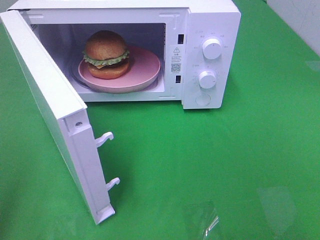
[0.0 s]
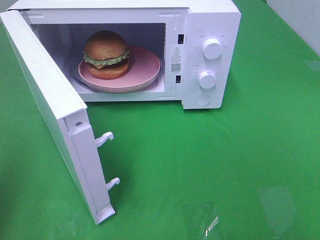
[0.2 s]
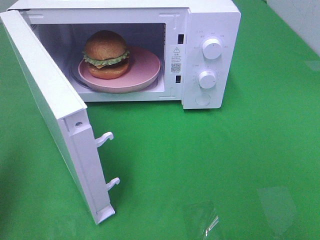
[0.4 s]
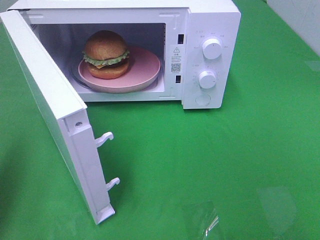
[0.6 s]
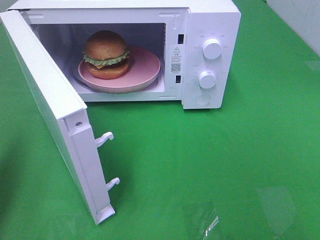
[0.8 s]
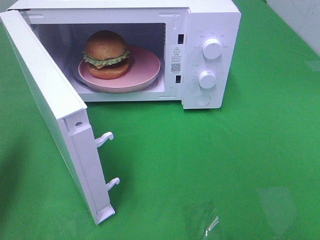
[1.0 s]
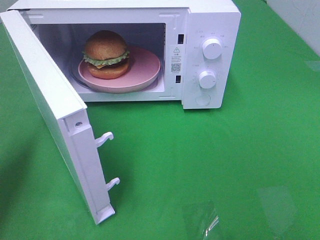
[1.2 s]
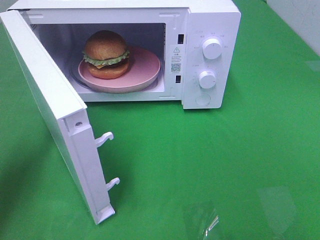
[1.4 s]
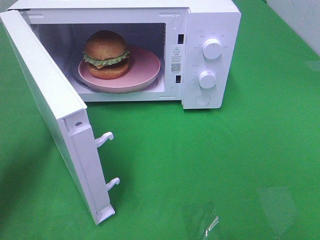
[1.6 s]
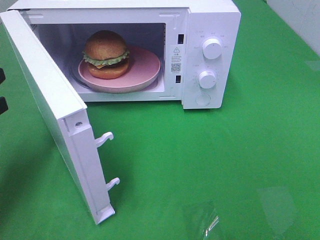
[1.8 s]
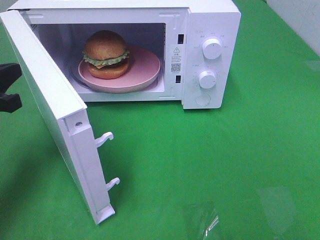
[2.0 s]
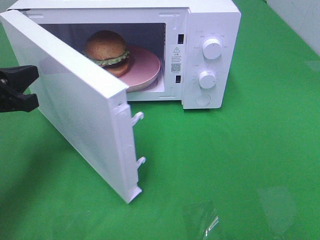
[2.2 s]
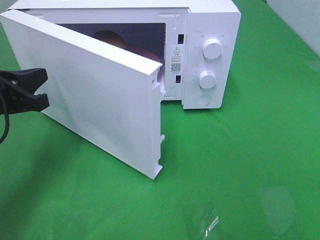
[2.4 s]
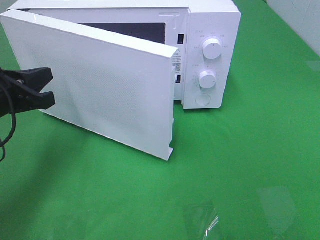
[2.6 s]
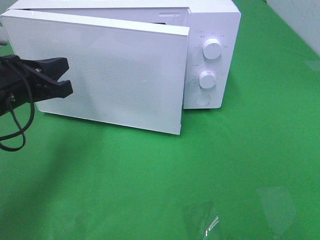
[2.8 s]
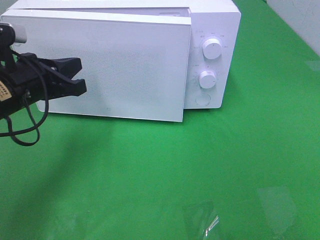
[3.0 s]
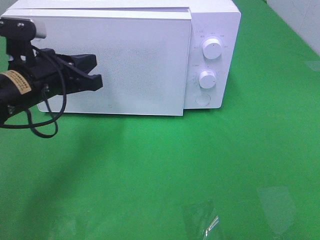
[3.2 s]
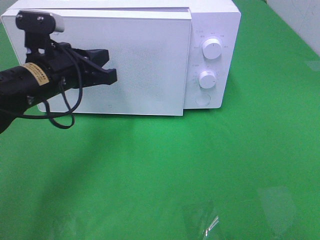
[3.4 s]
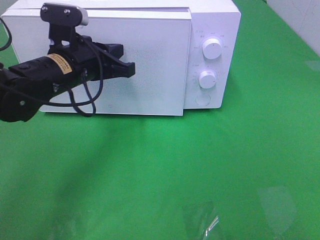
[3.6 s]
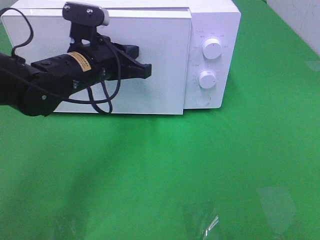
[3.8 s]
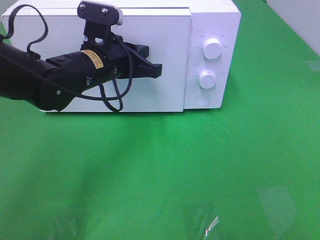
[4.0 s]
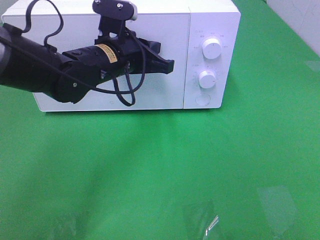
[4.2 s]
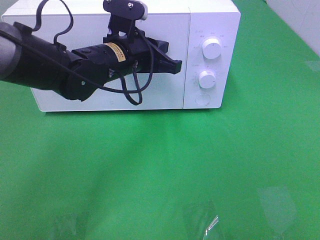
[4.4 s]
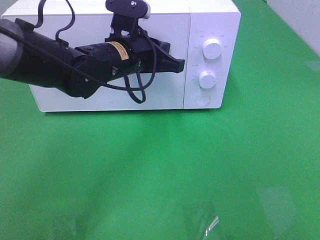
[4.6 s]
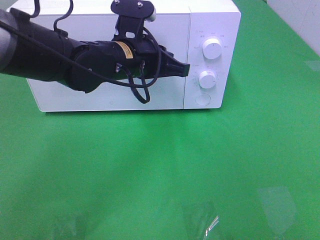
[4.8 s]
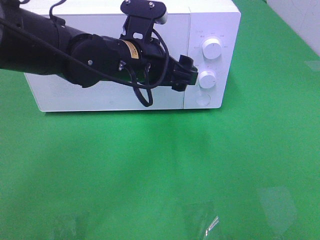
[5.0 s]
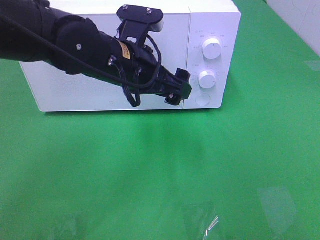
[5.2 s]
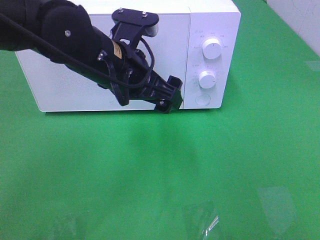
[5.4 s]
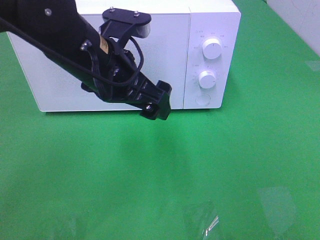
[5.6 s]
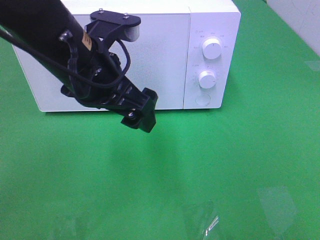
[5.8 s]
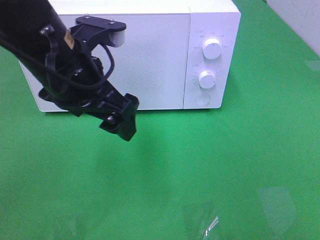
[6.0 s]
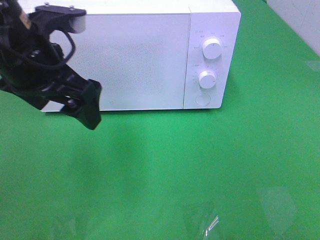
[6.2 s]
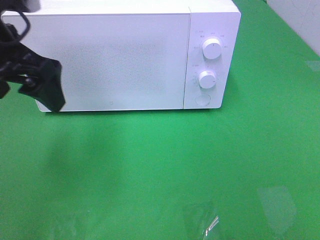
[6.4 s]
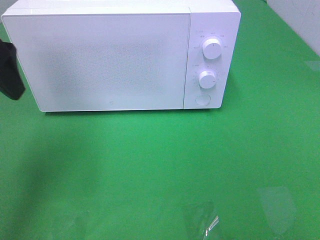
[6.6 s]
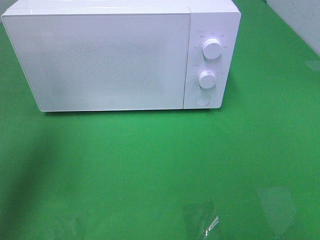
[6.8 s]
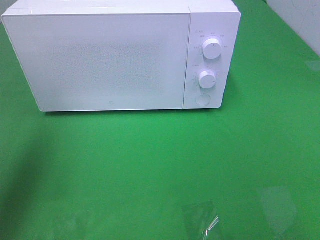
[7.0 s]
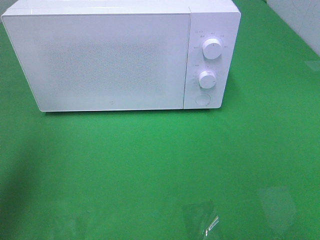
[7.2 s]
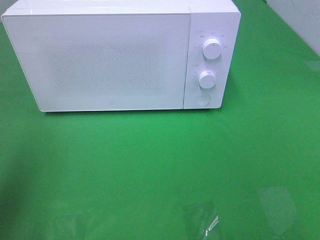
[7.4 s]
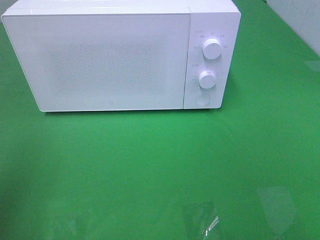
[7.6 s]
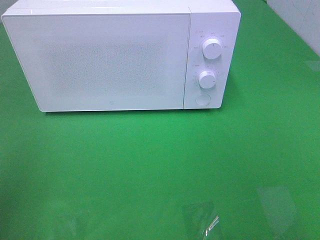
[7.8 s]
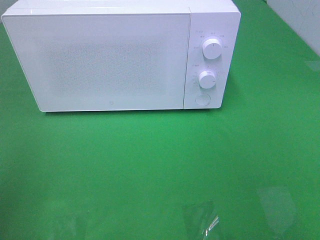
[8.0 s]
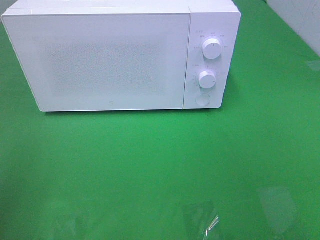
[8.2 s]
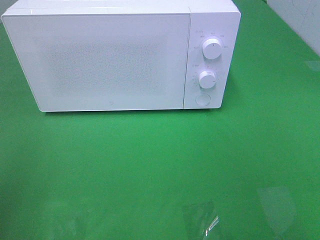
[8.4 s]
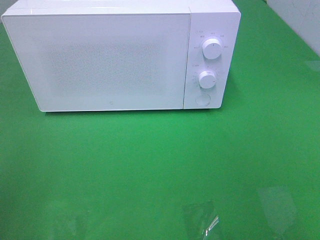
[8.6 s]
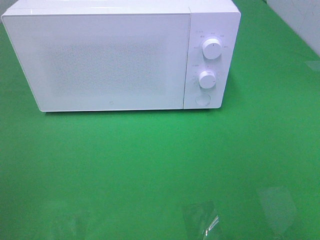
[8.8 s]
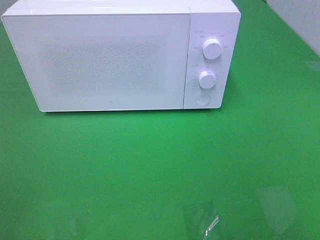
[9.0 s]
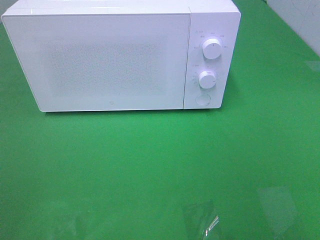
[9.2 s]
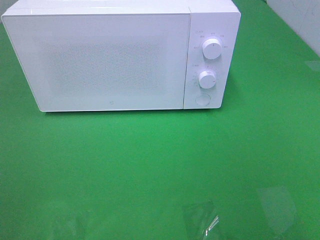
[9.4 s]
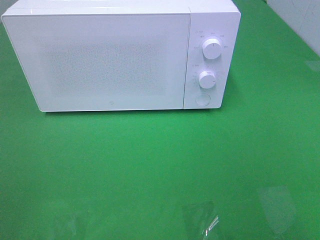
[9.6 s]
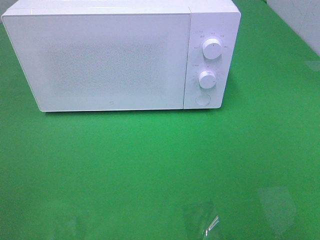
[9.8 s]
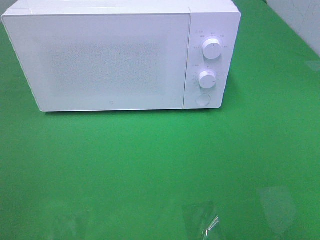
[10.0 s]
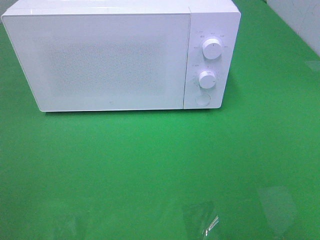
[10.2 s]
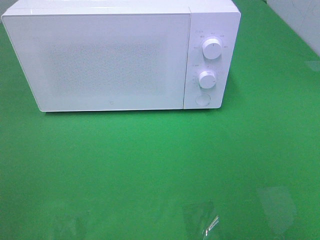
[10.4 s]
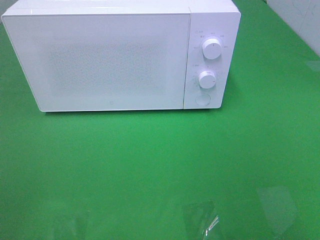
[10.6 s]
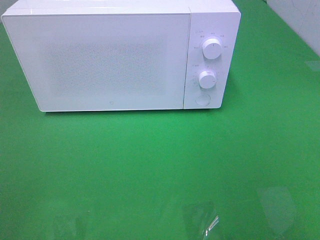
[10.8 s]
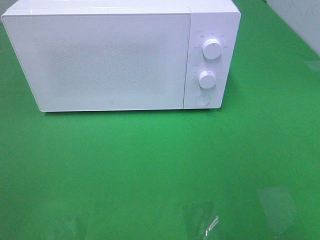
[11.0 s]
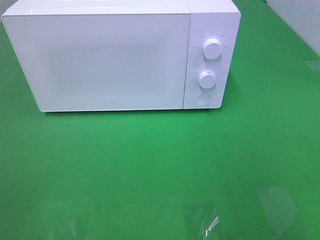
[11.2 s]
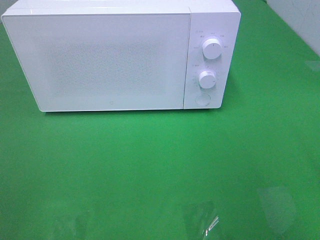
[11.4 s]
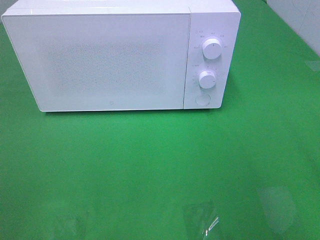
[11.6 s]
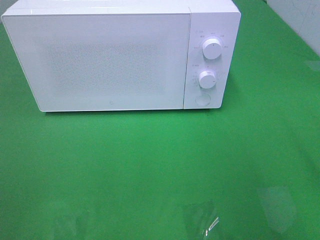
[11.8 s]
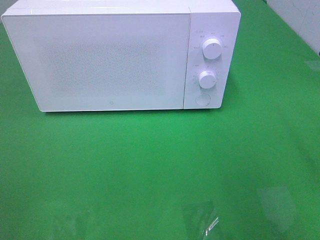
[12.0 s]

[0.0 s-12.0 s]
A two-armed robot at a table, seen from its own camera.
Task of the whole recording: Heat the burger.
Step, 0.0 to 4.6 s: Left hand: close the microwave door.
0.0 to 1.6 s: The left gripper travels forward and downward by some 20 cm, and closes its fingers.
1.6 to 3.0 s: The left gripper moves to the right and forward, roughly 10 cm.
3.0 to 4.4 s: The left gripper is displaced to the right and forward by approximately 15 cm.
4.4 to 6.0 s: The left gripper shifts about 15 cm backward and upward, and opens its fingers.
6.0 to 7.6 s: The left gripper shifts about 25 cm to the left and backward.

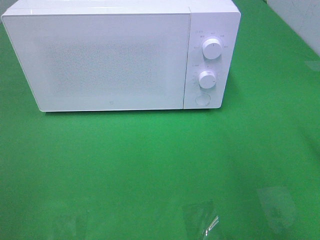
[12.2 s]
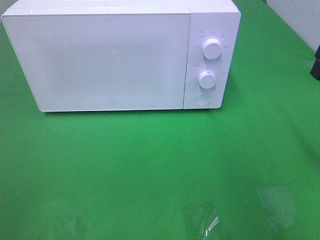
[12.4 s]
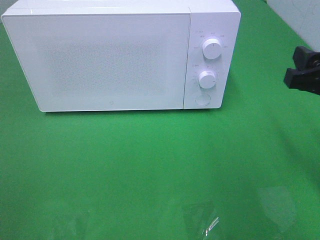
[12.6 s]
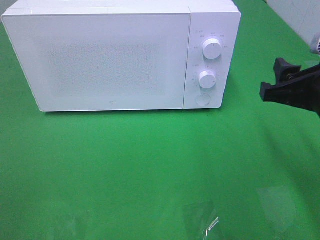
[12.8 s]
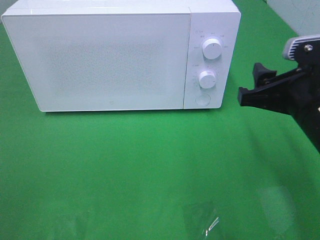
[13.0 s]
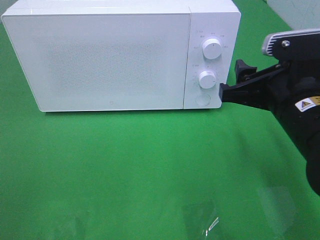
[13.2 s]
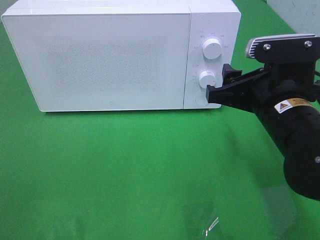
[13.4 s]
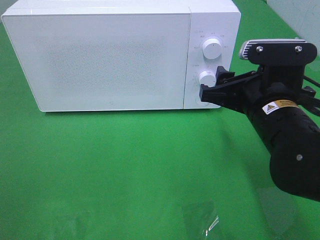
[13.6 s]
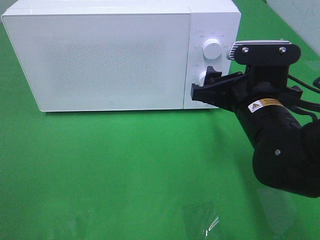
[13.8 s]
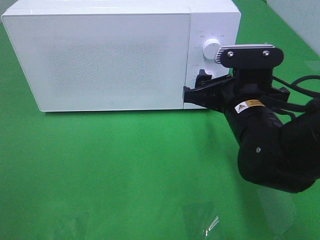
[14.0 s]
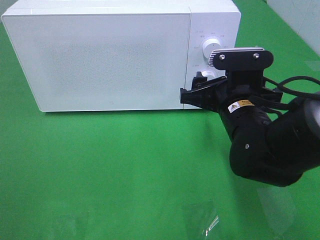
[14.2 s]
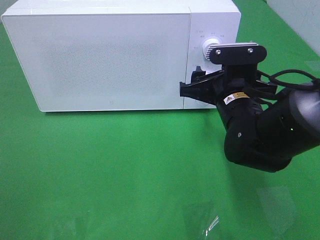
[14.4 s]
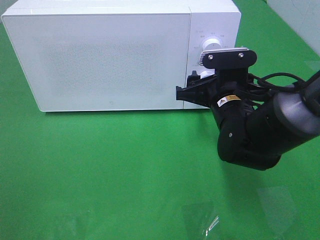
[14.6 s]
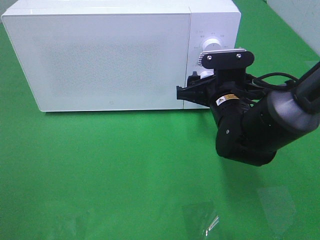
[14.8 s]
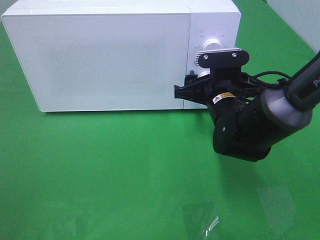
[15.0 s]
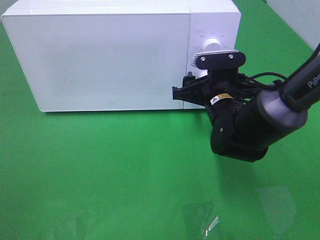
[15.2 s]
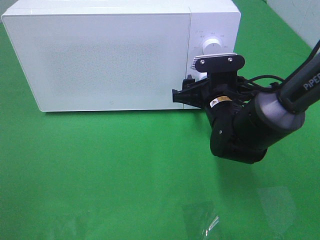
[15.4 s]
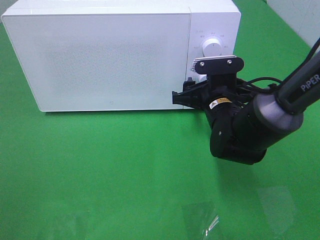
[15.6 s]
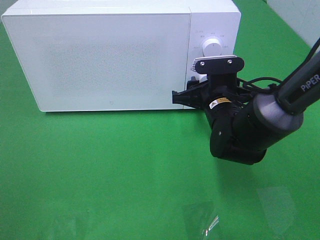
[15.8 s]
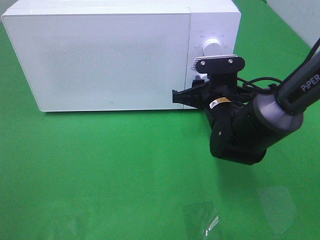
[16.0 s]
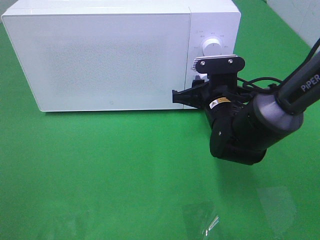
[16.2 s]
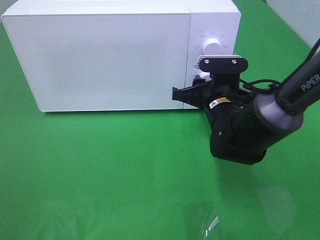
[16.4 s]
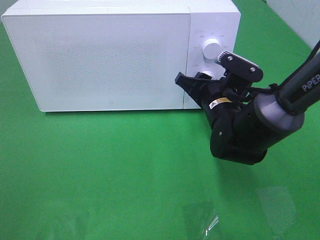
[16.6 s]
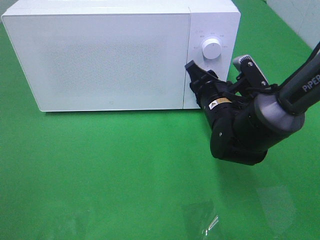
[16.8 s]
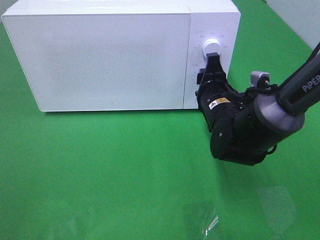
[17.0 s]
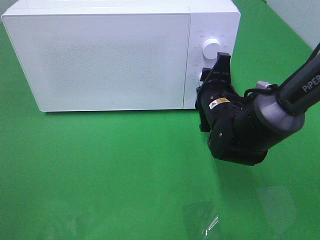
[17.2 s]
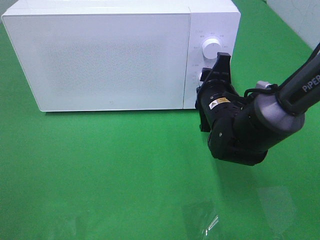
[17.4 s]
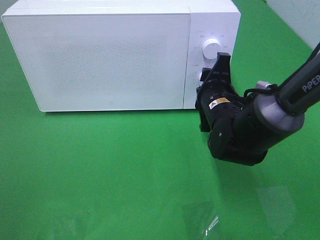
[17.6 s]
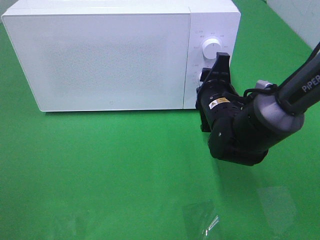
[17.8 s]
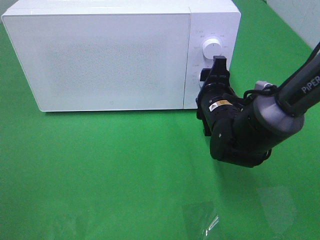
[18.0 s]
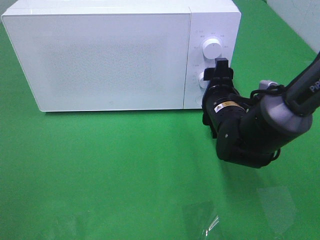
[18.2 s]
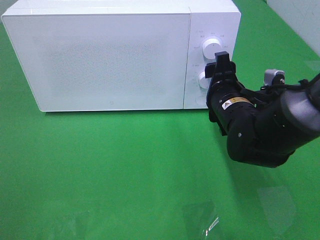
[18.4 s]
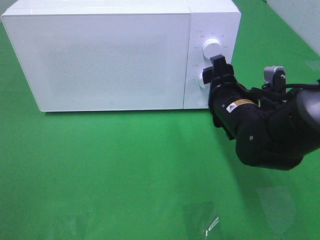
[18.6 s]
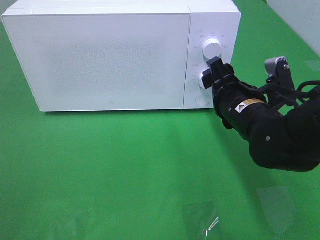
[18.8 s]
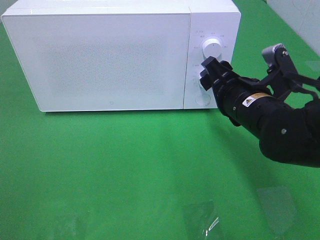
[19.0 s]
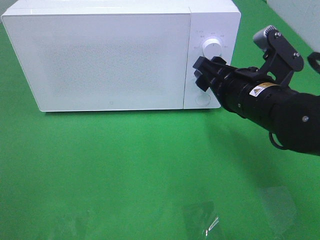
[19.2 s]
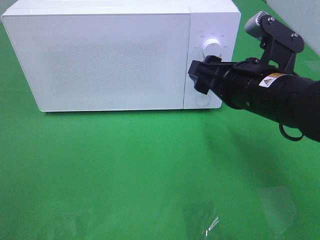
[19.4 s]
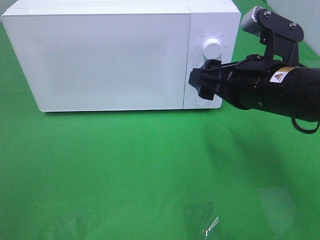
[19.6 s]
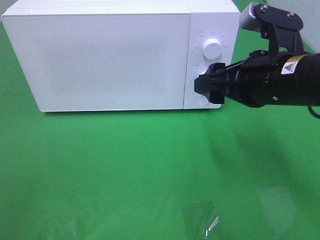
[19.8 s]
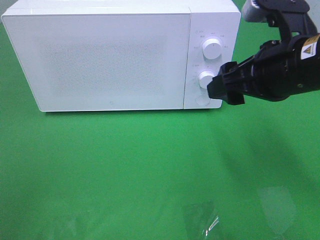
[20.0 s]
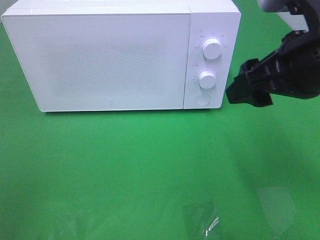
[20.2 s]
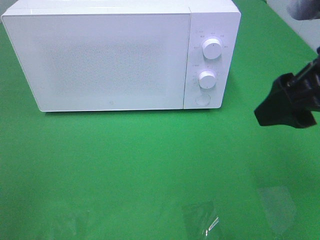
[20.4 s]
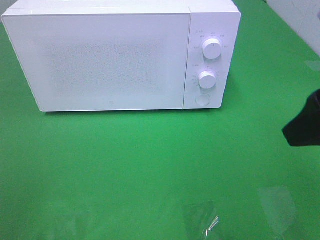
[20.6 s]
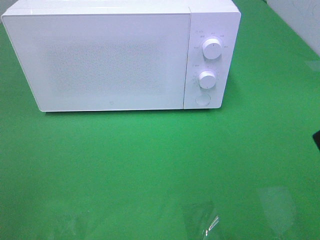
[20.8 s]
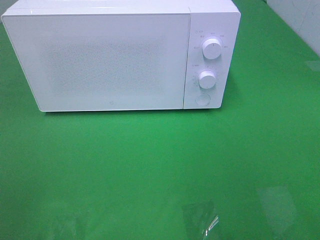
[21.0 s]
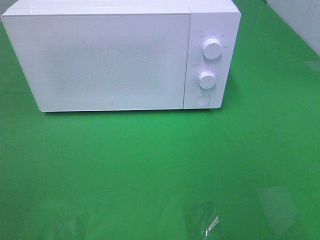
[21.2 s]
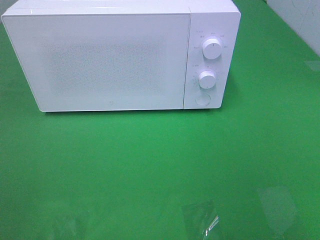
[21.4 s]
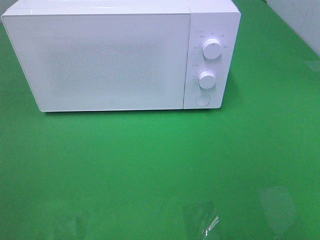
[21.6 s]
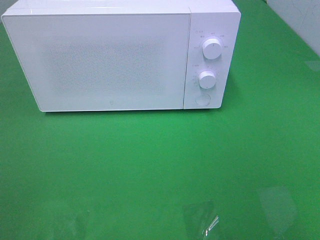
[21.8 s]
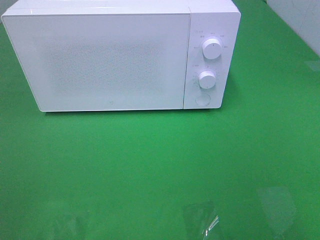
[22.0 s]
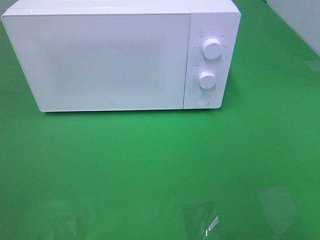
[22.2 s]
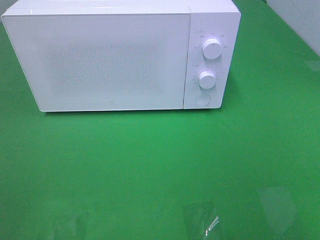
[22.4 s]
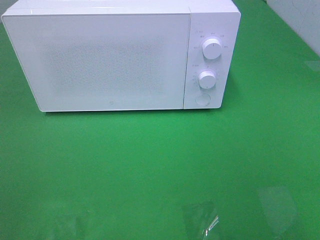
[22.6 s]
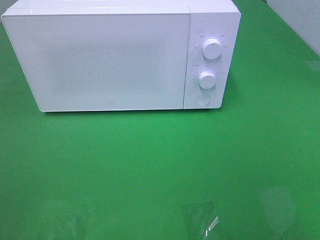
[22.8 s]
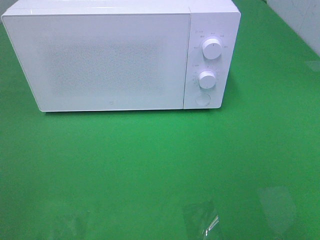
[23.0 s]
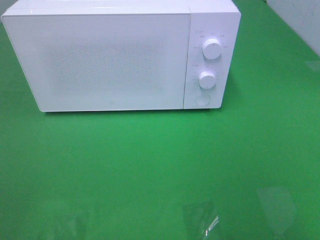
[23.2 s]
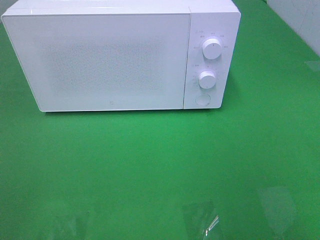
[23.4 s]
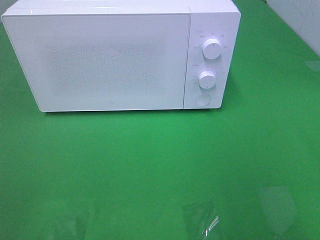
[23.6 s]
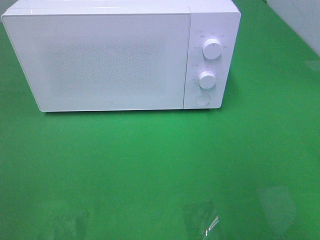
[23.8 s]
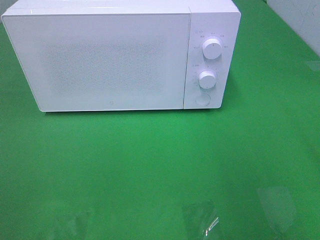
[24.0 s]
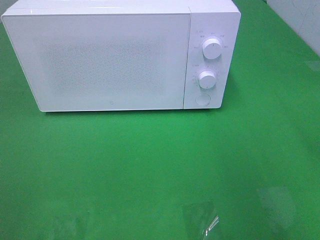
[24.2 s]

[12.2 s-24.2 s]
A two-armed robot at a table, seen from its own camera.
Task of the whole recording: Heat the burger.
Step, 12.2 to 17.8 s: Right hand: twist timer button.
12.2 to 13.8 s: The right gripper is displaced to the left and downward by approximately 15 cm.
13.8 to 15.2 s: The right gripper moves forward and downward, approximately 10 cm.
15.2 to 16.6 s: The right gripper closes.
16.6 to 18.2 s: The right gripper opens.
18.2 to 19.8 s: The right gripper moves upward and backward, approximately 15 cm.
19.8 to 21.2 s: The right gripper is displaced backward, to the right and upward by roughly 20 cm.
